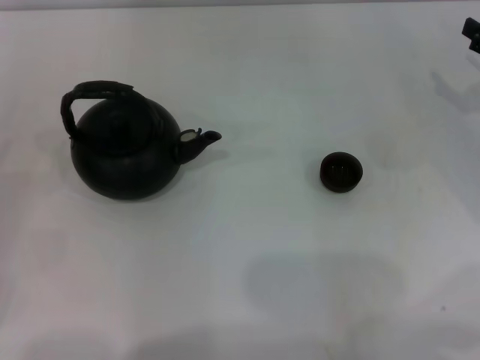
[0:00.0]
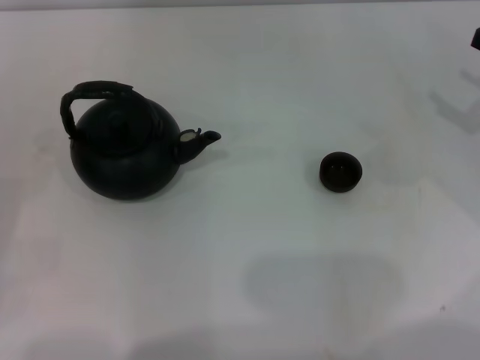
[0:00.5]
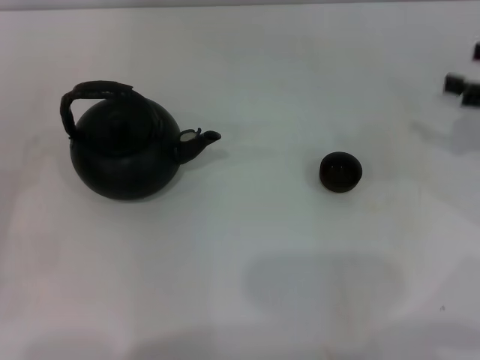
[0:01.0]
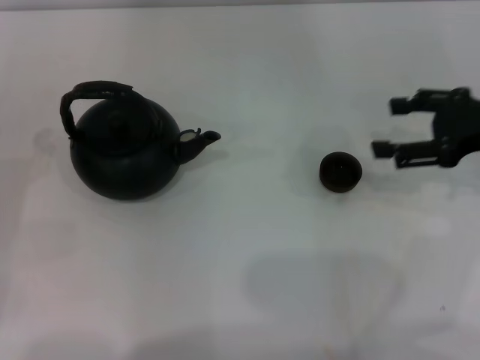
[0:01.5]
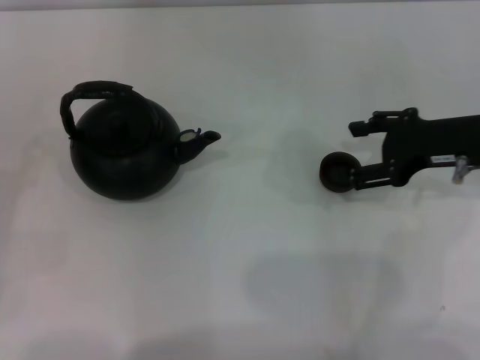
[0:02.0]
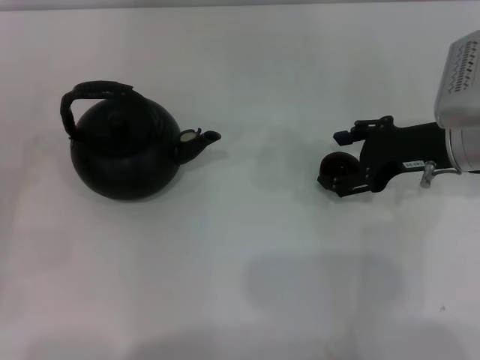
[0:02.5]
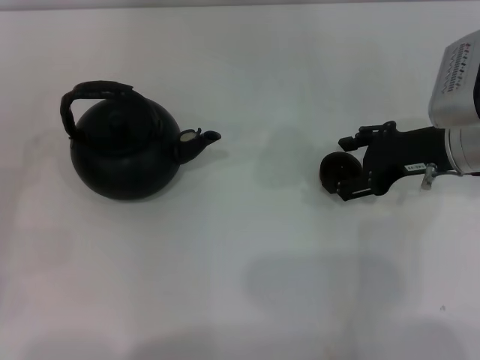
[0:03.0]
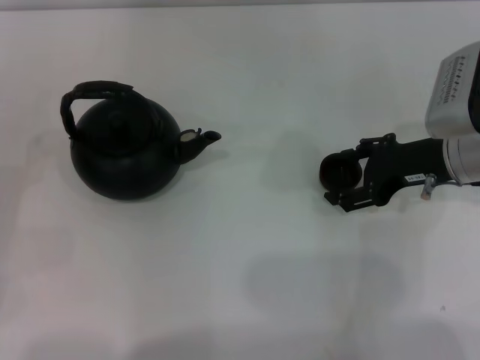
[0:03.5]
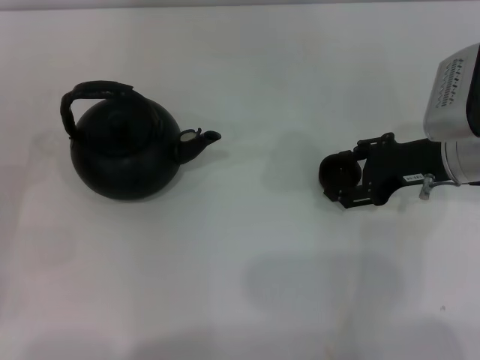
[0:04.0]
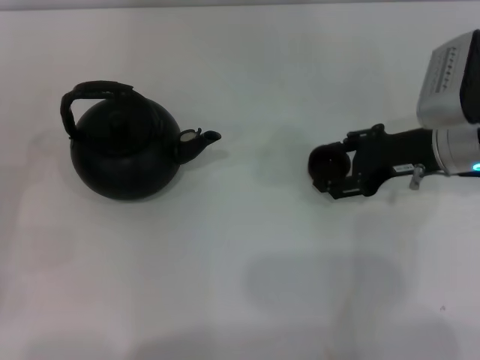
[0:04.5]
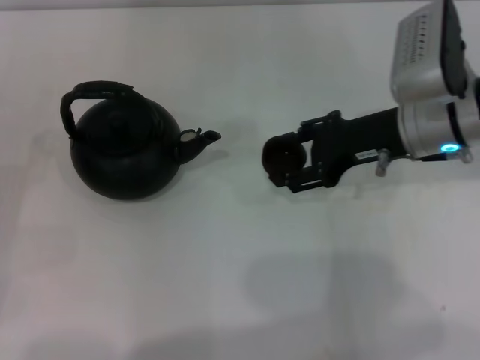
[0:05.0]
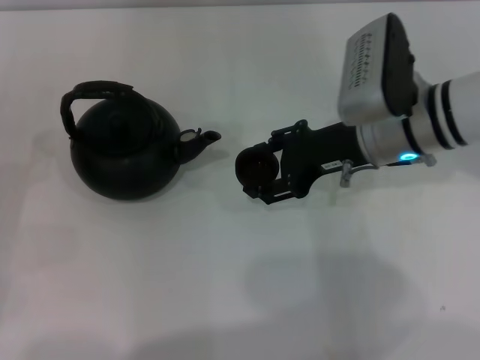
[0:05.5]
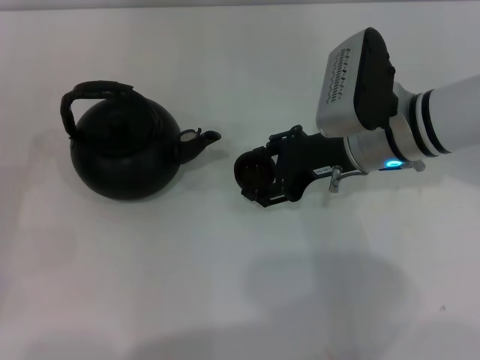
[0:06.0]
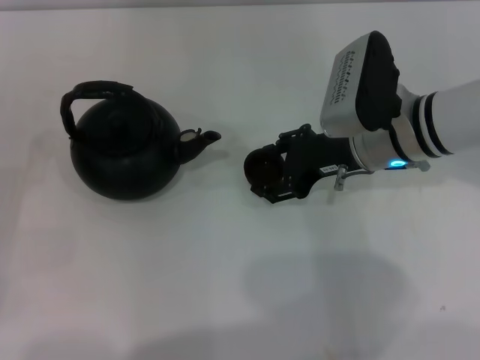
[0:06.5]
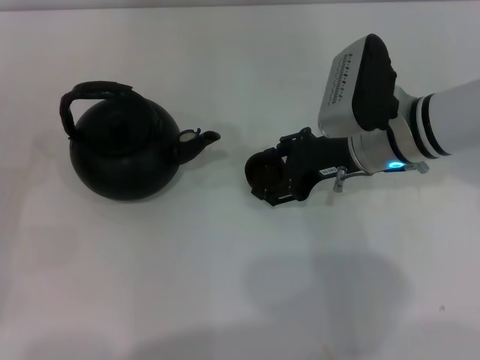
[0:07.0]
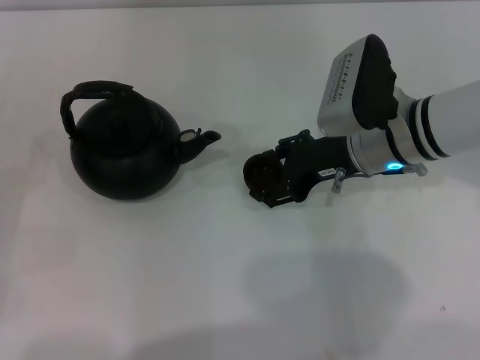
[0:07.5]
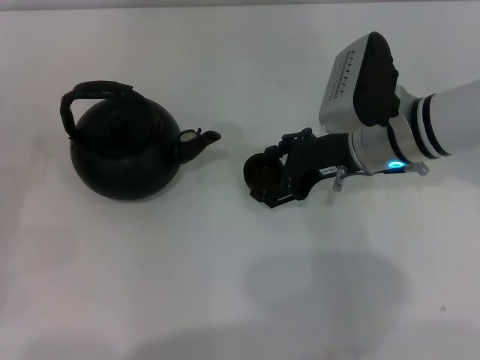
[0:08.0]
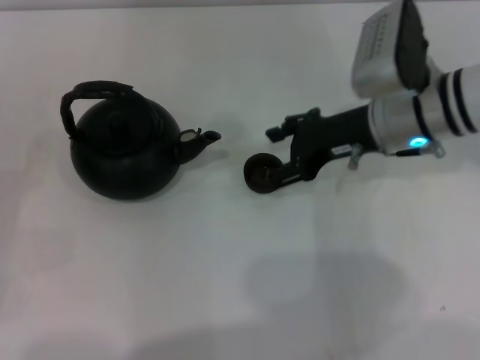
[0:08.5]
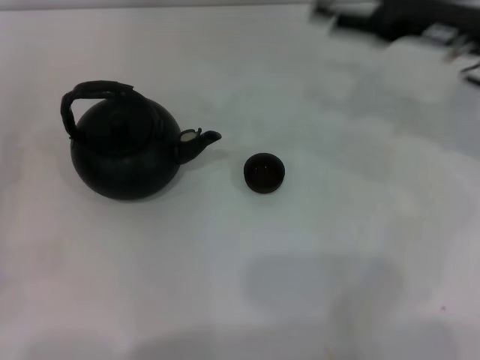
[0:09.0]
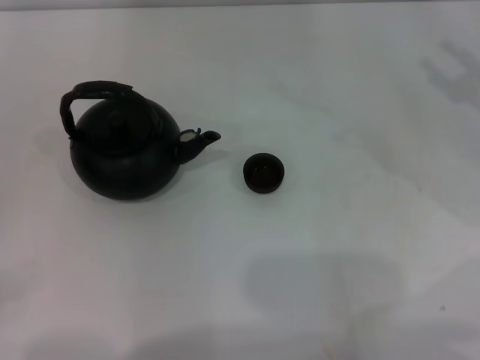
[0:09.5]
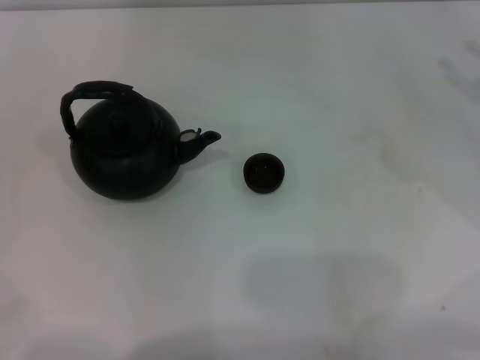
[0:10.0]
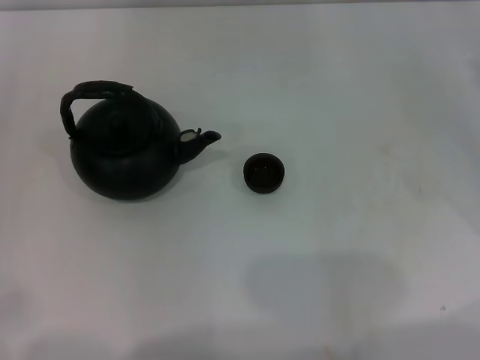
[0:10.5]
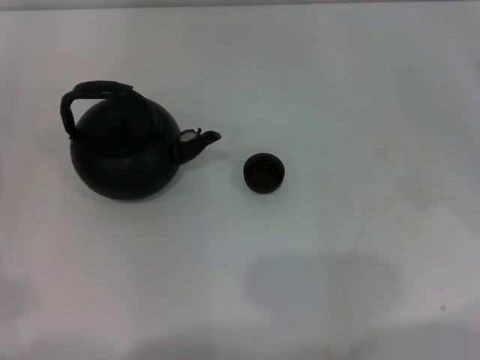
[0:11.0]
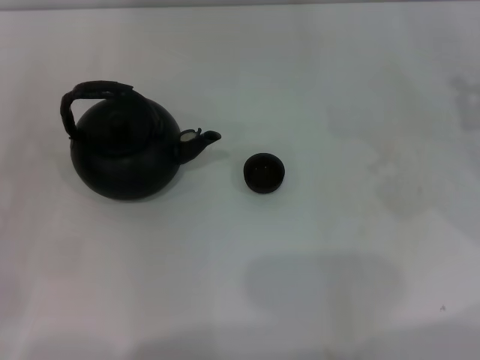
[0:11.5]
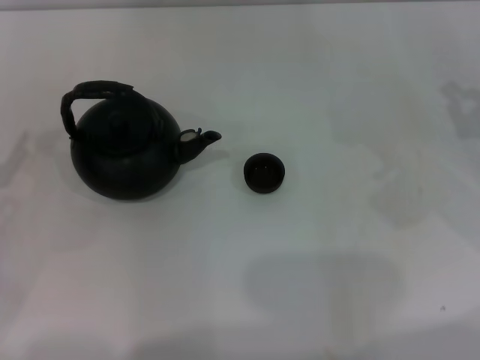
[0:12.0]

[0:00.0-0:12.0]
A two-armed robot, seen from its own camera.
Task of the whole recording: Grasp the handle of the teapot with one hand and pour tea into the teacup.
Step, 0:00.0 to 0:04.5: Pick up the teacup with the right gripper.
Step, 0:05.0 to 0:08.5: Place the teacup in the center of view with the right gripper.
0:00.0 to 0:02.0: The right gripper travels to the left by some 10 cm.
0:02.0 to 0:04.0: There are only small adjustments of the grippers.
0:04.0 to 0:06.0: The right gripper moves to the left, some 10 cm.
0:06.0 to 0:08.0: The grippers stay close to where they were, moving slightly.
0:08.0 to 0:10.0: The right gripper heads to the right, covering roughly 20 cm.

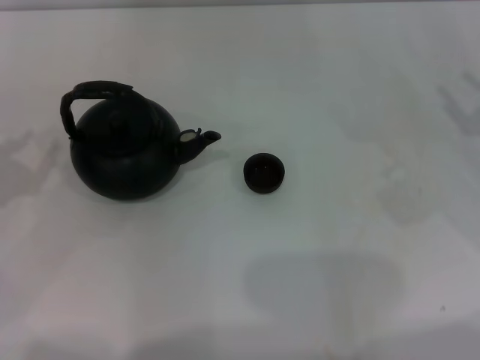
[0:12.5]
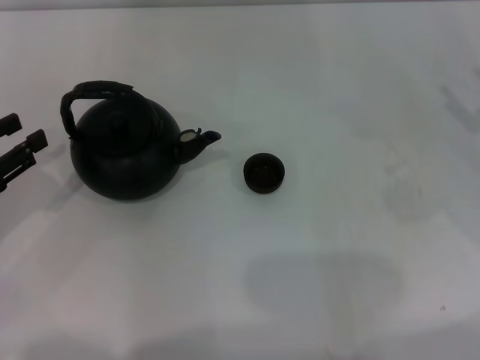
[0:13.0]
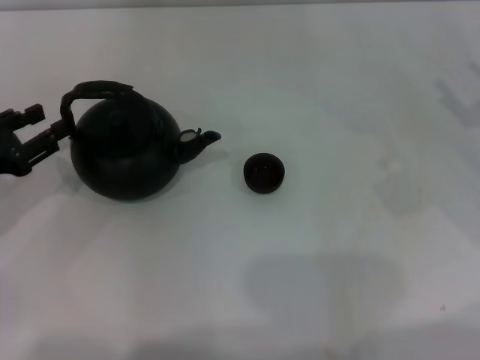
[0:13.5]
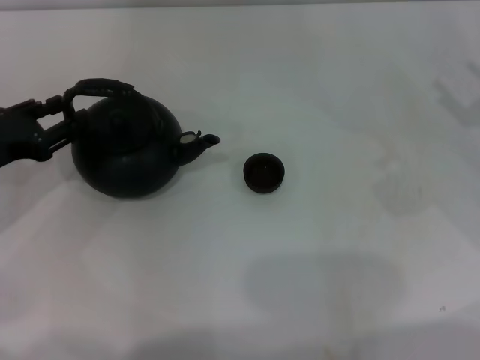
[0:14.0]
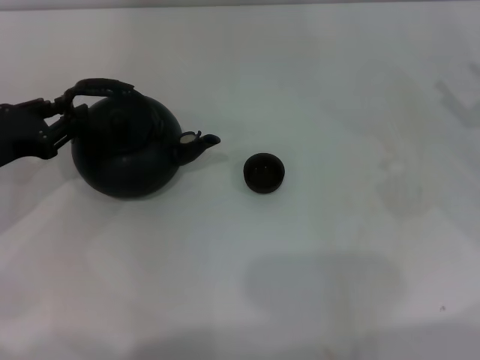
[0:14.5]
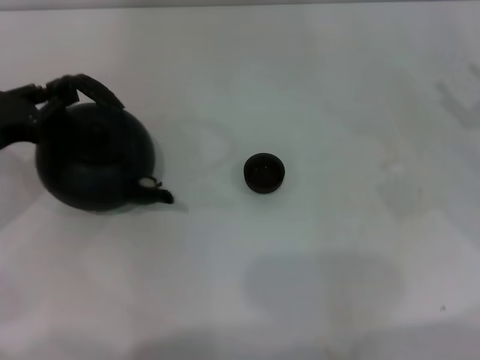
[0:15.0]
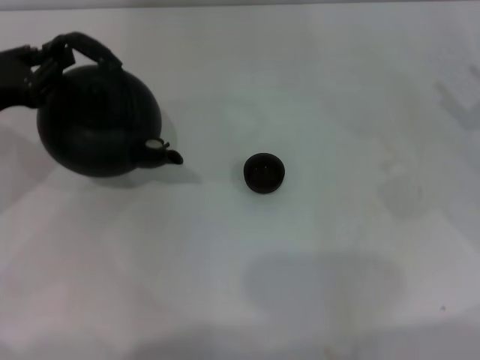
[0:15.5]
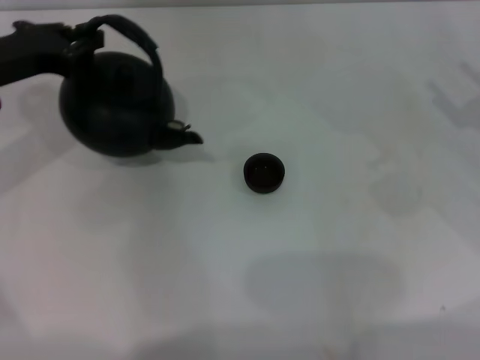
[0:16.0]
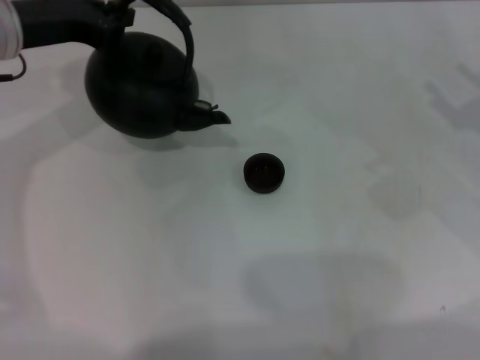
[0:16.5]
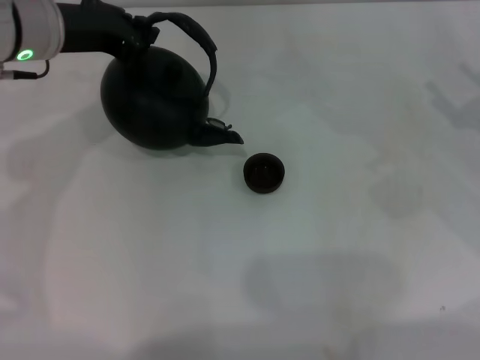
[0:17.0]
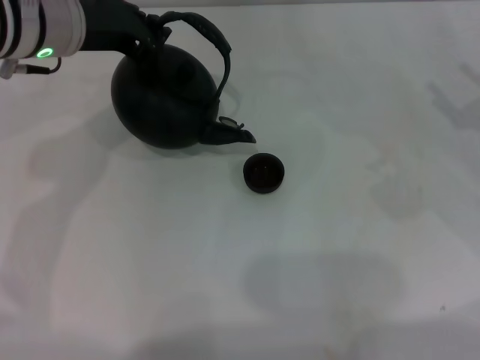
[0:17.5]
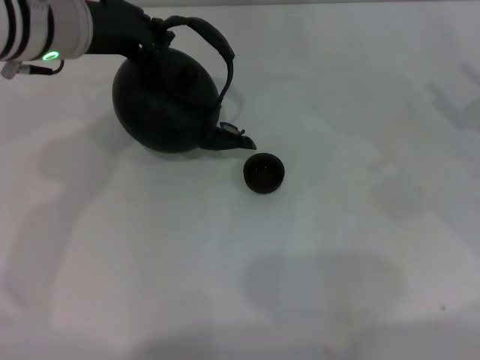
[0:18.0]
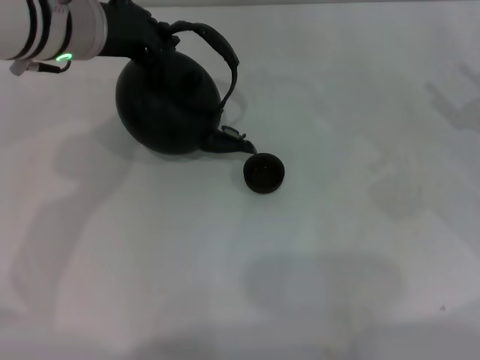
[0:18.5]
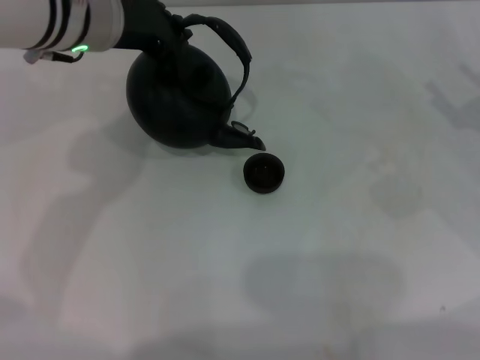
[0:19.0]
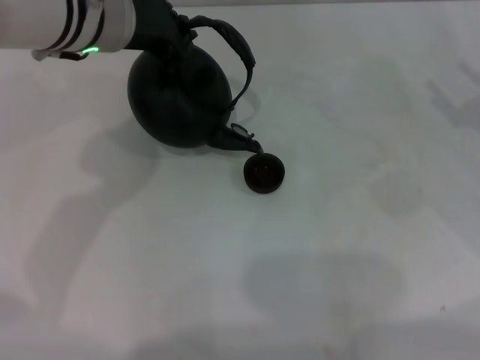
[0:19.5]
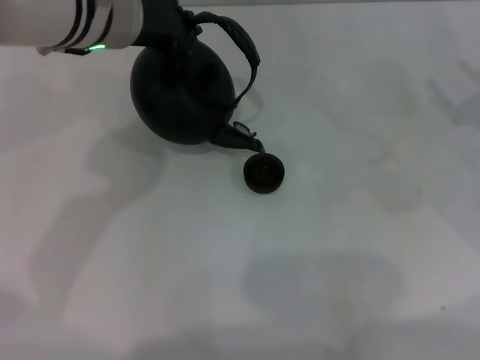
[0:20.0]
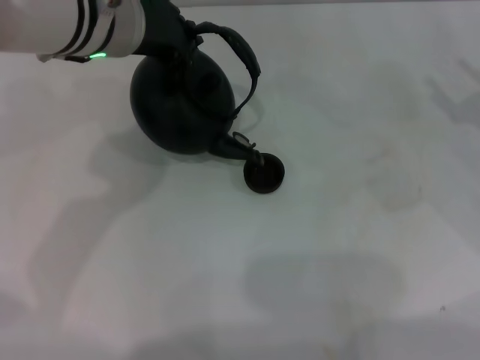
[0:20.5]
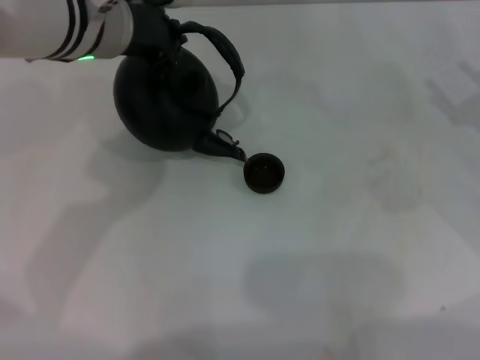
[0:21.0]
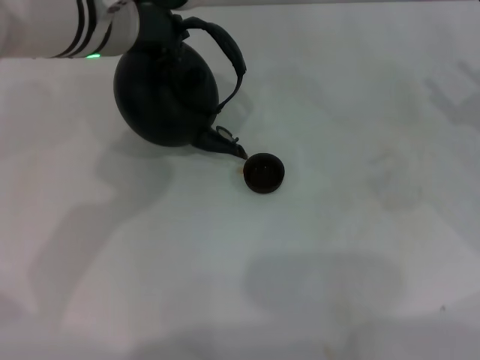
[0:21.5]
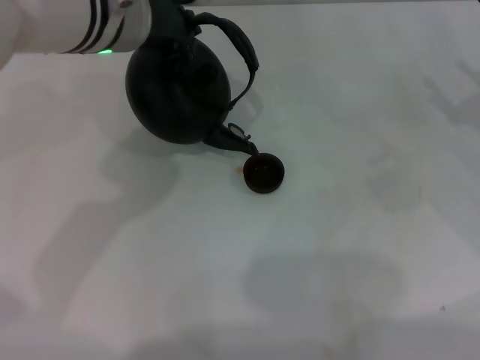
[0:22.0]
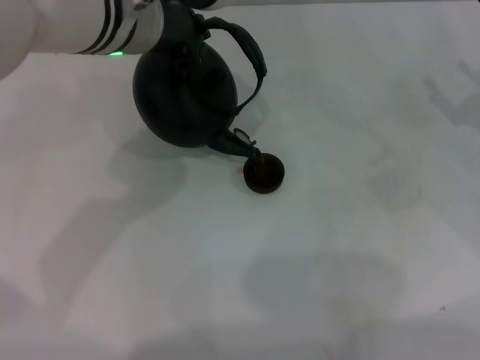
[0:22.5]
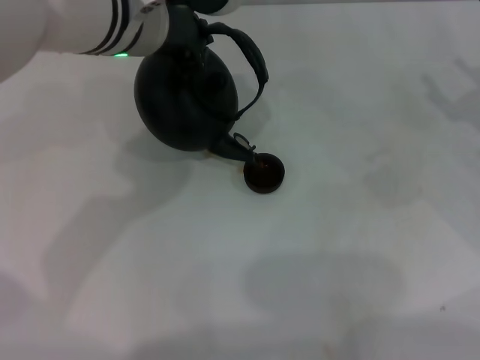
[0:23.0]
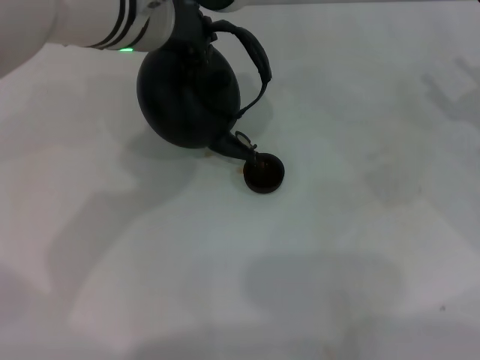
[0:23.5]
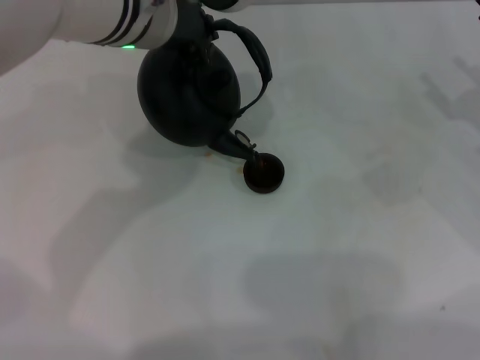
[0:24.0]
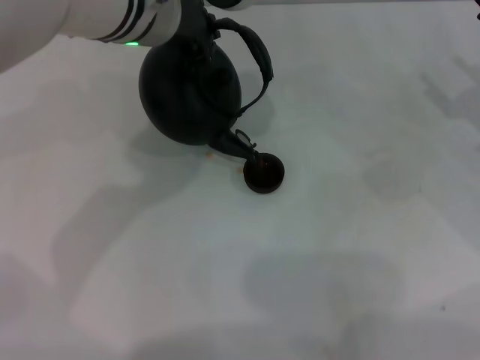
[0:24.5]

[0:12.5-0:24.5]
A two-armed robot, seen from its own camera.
Task of the whole recording: Grasp the handle of the teapot with one hand and pour tea into the teacup.
Step, 0:12.5 to 0:15.5: Pick up the teapot with the left gripper.
0:12.5 to 0:14.5: The left gripper moves forward and to the right, approximately 10 cm.
0:14.5 to 0:16.5: The left gripper goes some 15 cm forward, upward and to the right, and closes up.
0:16.5 to 0:18.5: The left gripper is displaced to the right by some 10 cm.
0:18.5 to 0:22.5: The grippers move only a little.
0:22.5 to 0:24.5: There are only small adjustments of the grippers.

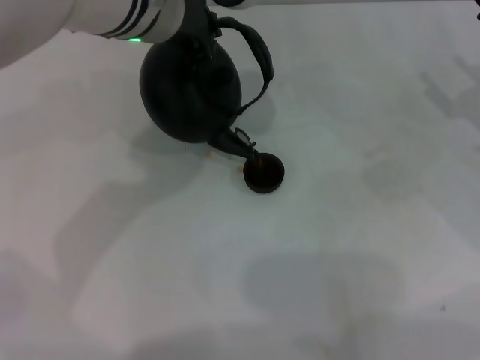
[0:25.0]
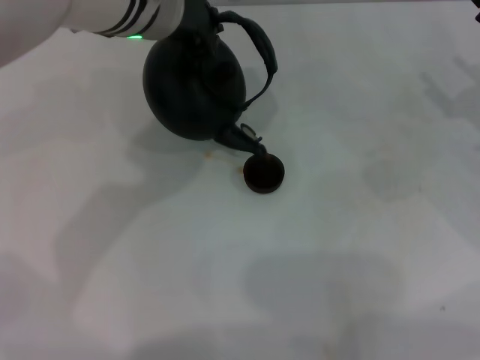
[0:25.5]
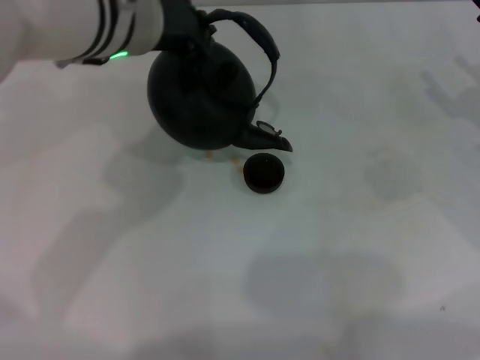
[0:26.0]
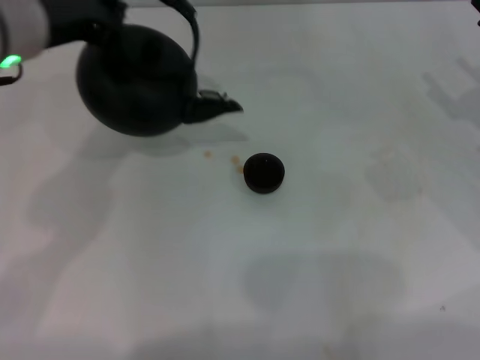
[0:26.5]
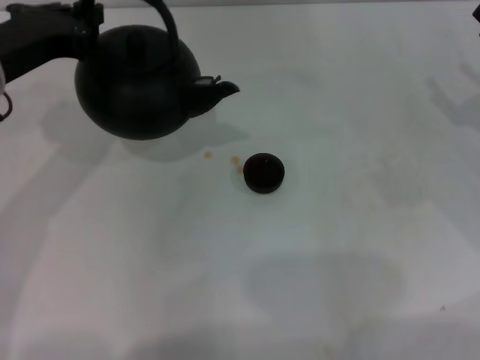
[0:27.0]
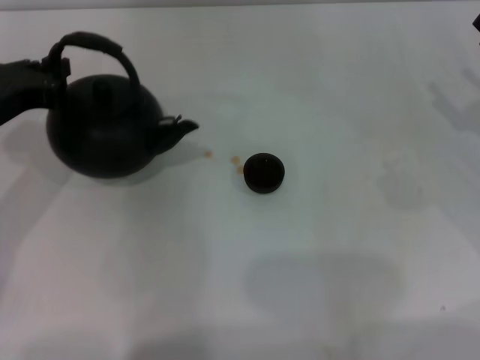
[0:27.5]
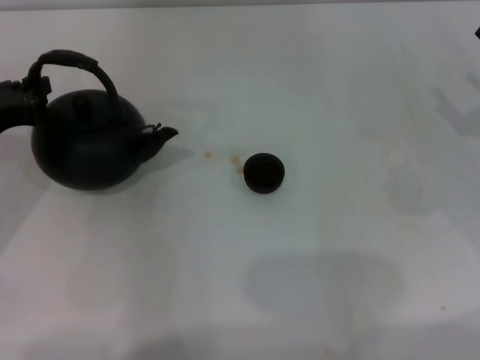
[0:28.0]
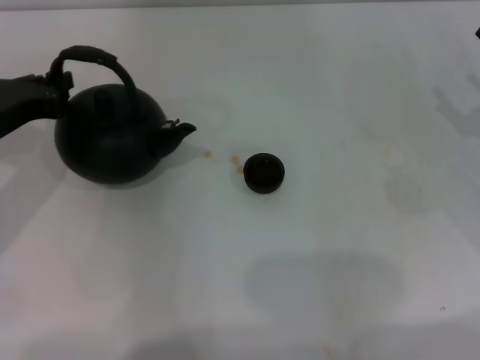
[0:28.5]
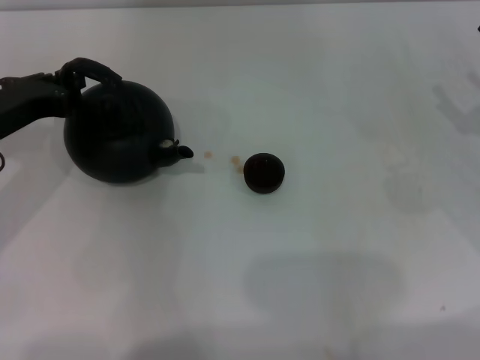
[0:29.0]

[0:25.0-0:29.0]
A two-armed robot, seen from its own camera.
Task of the whole recording: Grasp the handle of the teapot with one hand and pour tea into the teacup.
0:25.0 to 0:27.0: The left gripper is displaced to the left and backward by some 15 cm.
0:27.0 to 0:29.0: The left gripper shifts approximately 5 cm downward.
